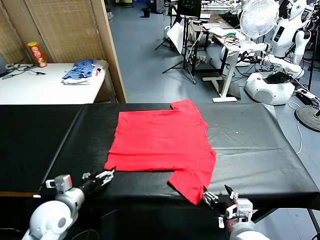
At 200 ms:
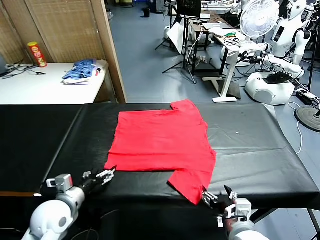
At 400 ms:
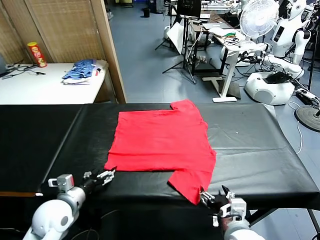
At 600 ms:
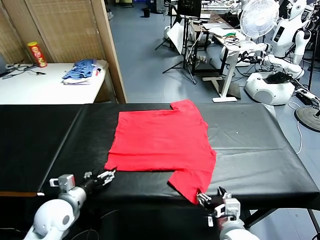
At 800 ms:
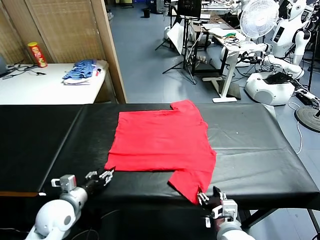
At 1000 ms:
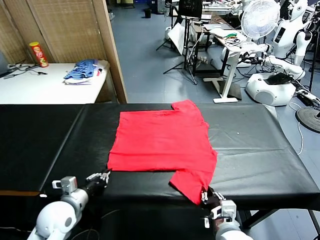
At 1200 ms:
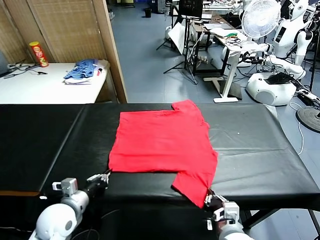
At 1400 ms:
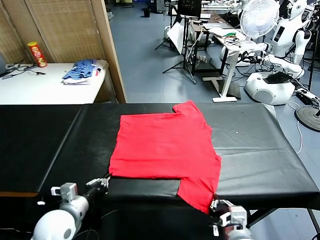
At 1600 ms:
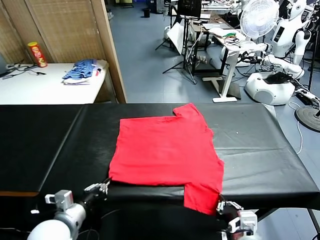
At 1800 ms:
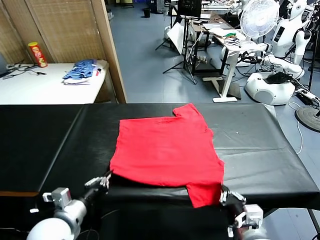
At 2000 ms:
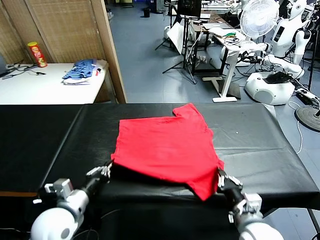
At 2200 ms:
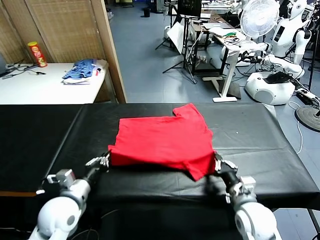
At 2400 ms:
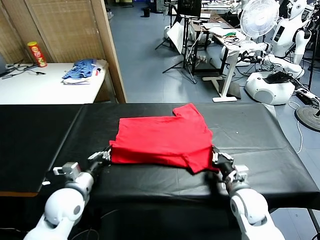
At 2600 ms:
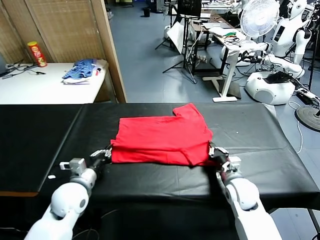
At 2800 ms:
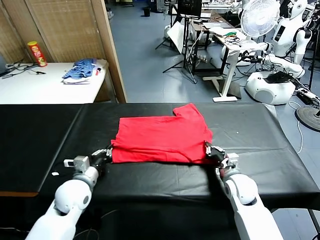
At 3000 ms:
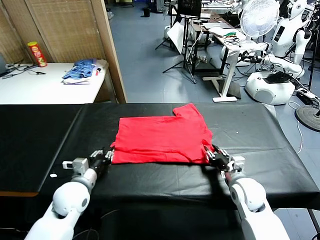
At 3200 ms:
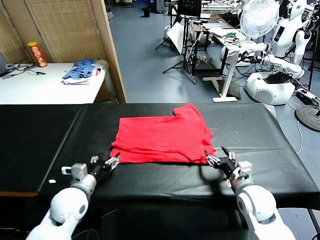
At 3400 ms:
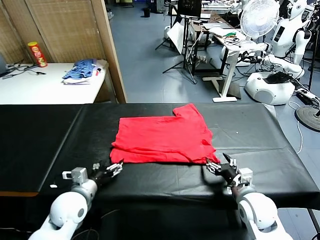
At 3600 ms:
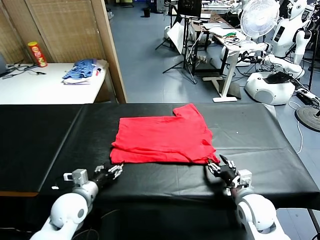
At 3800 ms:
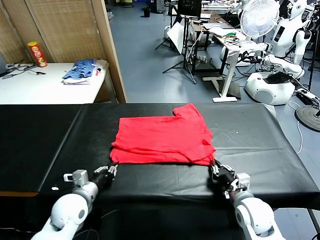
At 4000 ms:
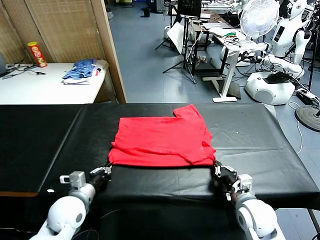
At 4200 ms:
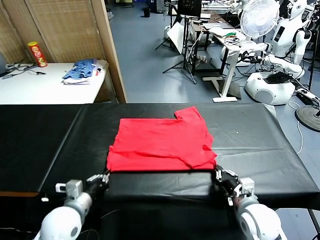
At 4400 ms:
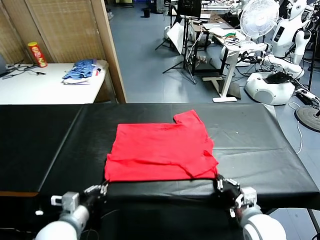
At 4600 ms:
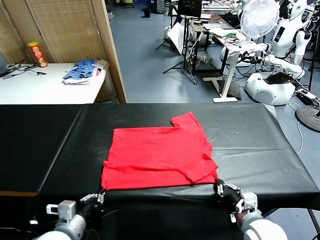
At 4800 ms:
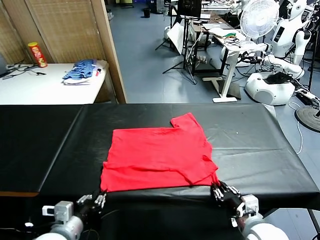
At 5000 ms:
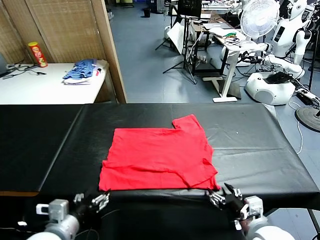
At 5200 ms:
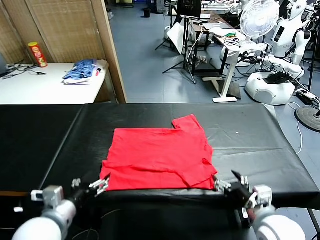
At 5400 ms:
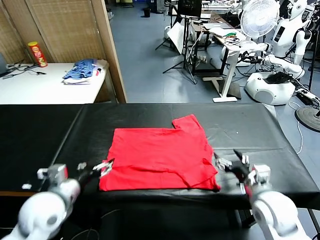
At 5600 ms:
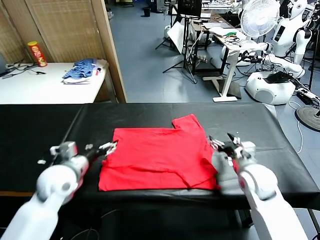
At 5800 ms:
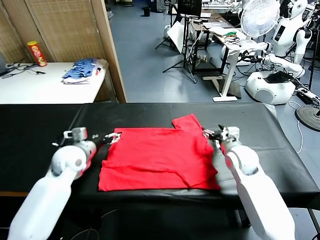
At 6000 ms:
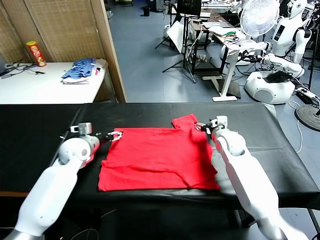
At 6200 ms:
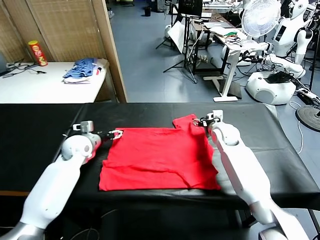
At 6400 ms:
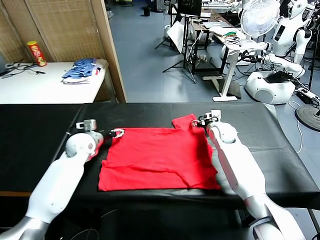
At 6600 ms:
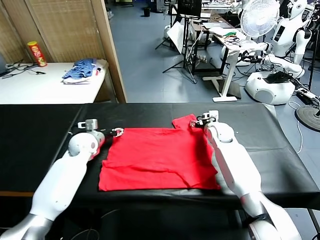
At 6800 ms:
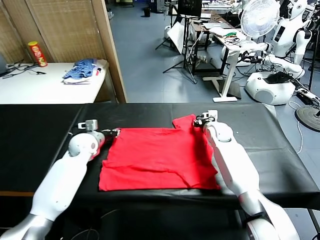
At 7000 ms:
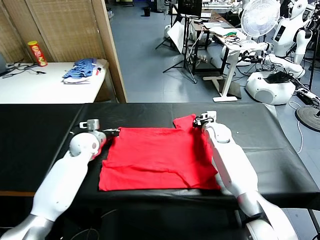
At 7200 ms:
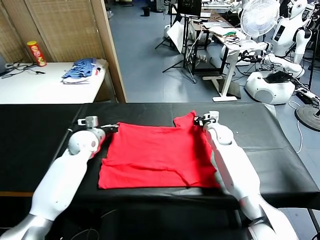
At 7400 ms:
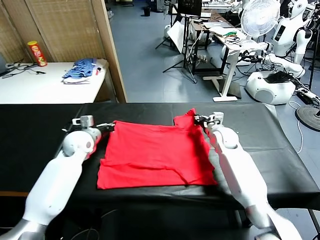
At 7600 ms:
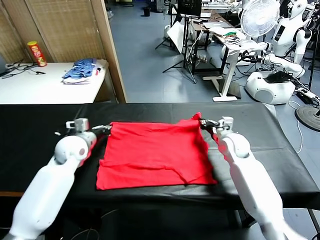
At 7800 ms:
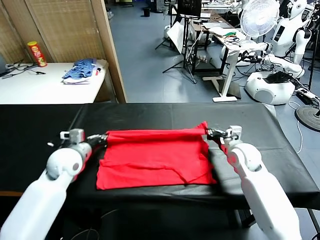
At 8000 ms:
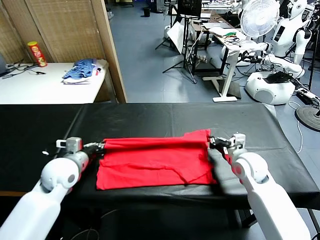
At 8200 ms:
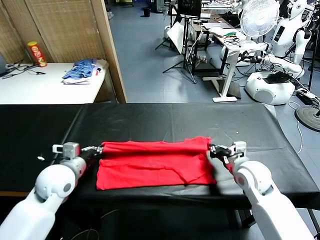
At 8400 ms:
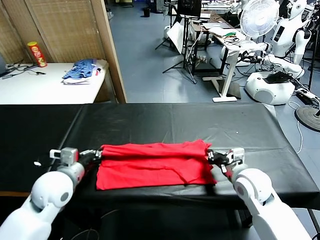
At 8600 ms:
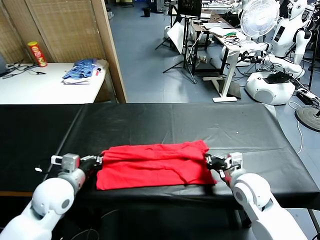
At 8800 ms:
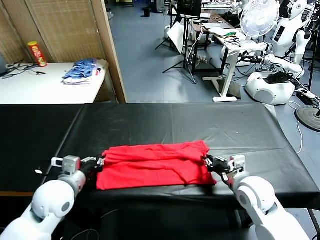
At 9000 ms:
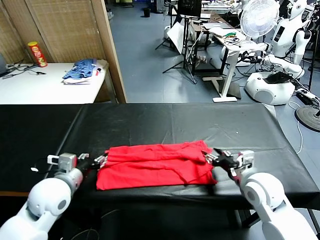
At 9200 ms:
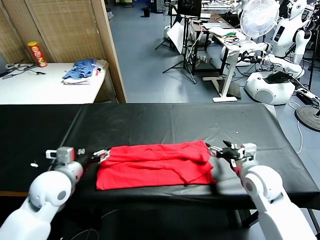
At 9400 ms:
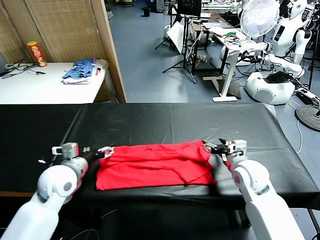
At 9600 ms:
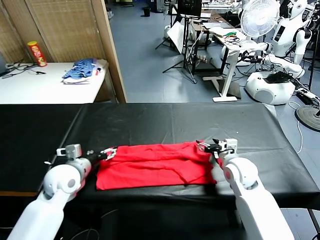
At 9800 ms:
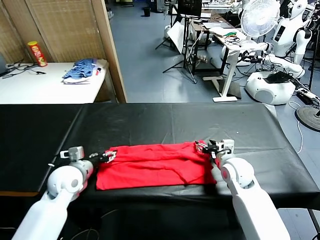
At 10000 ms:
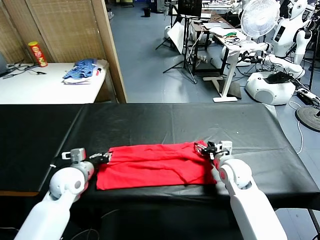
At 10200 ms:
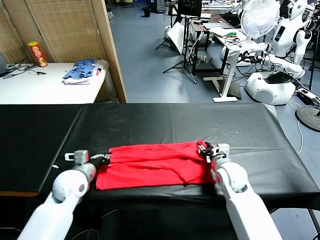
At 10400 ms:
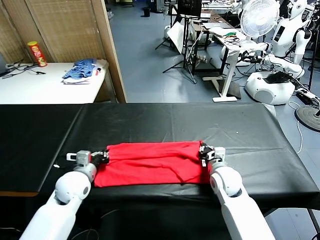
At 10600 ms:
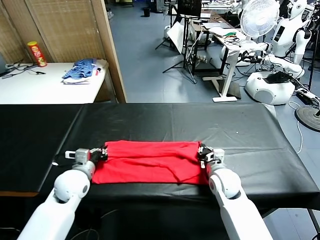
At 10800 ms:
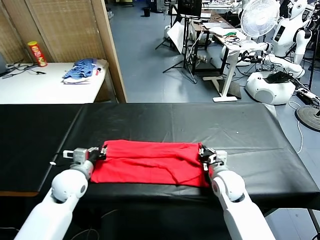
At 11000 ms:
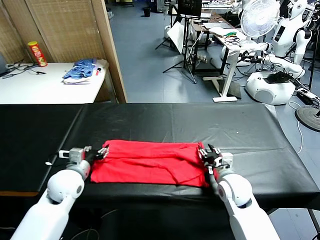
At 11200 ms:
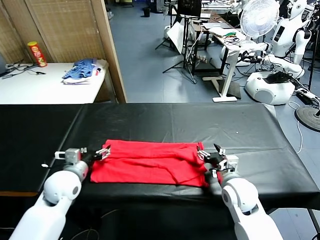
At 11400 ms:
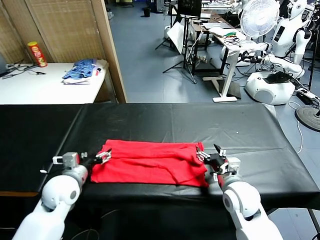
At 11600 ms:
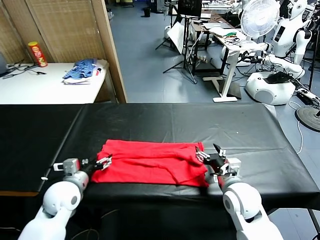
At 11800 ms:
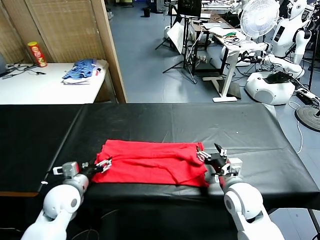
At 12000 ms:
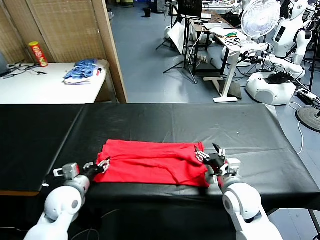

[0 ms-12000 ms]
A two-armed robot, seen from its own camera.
Task of the whole recording: fold and organize the clothes.
Step, 0 ms to 1600 ms: use both grippers simultaneously to clamp the lower edge of the clothing fabric.
Step, 1800 ms to 3000 ms: use both grippers to drag the lower edge of the fabric forward and fold it over the upper edge.
Step, 3400 ms to 5000 ms: Drag the clothes downward with both gripper.
Step, 5200 ms to 7200 ms: use both grippers simultaneously to clamp the upper edge of the clothing fabric.
Step, 7400 ms to 9000 ms: use both grippers to drag the upper edge of the fabric backward and fold it over the lower edge.
1600 ms to 3000 ms: Both grippers travel together forward, roughly 10 cm. The left gripper opens its fingers. The right gripper opens up.
3000 ms to 4400 ms: The grippers both shift backward by about 10 cm. The left gripper closes. Meanwhile the right gripper closes up.
4400 ms to 6000 ms: Both grippers move forward, roughly 30 cm. The right gripper opens; the left gripper opens up.
6000 ms to 7600 ms: The left gripper closes up. Meanwhile the right gripper shifts roughly 10 cm backward, and closes.
7600 ms to 9000 ms: Both grippers move backward, roughly 10 cm. The left gripper opens its fingers. The right gripper opens its fingers.
9000 ms to 10400 ms: The left gripper moves downward and forward, roughly 10 cm, and closes up, while the right gripper moves downward and to the left, approximately 10 cm, and closes its fingers.
10400 ms to 12000 ms: The left gripper ends up about 5 cm from where it was, and opens its fingers. The right gripper travels backward and upward by approximately 10 cm, and opens up.

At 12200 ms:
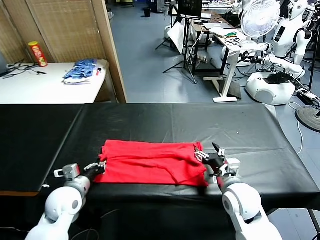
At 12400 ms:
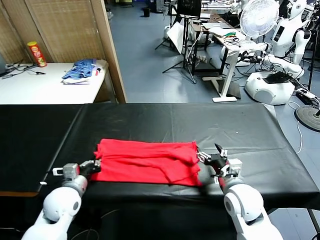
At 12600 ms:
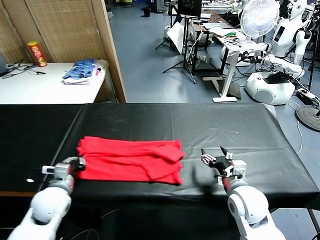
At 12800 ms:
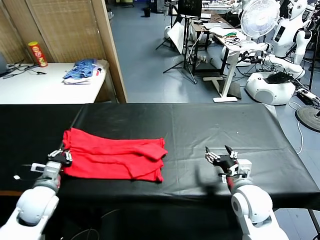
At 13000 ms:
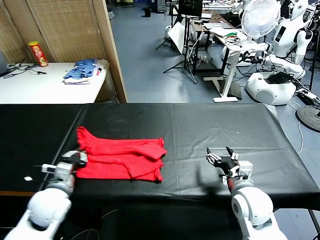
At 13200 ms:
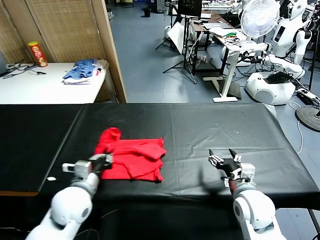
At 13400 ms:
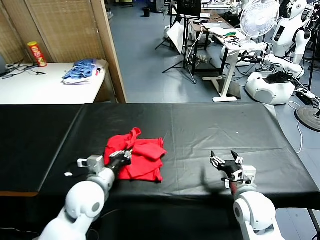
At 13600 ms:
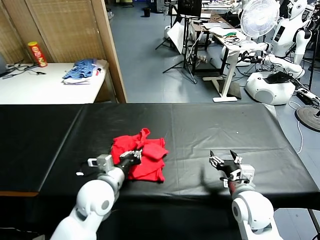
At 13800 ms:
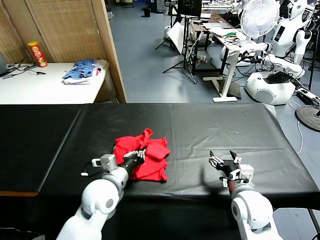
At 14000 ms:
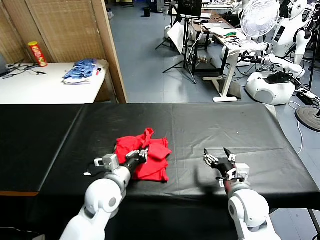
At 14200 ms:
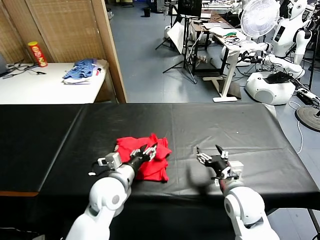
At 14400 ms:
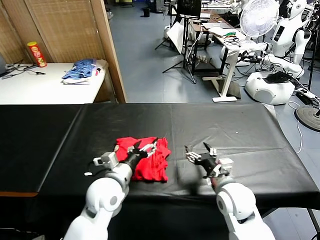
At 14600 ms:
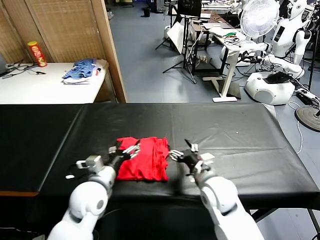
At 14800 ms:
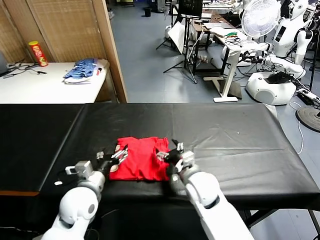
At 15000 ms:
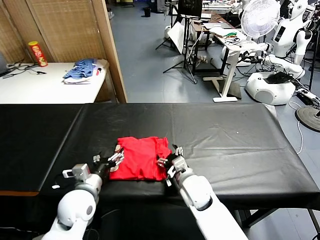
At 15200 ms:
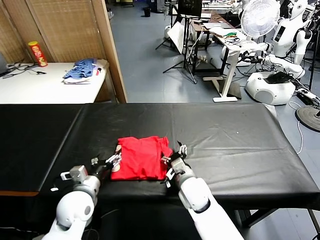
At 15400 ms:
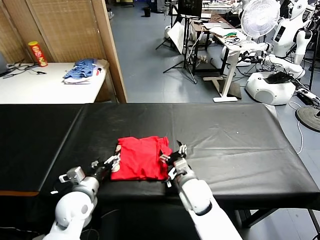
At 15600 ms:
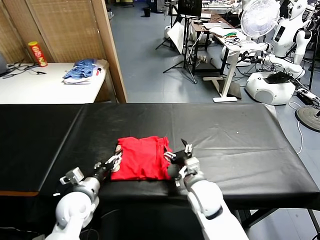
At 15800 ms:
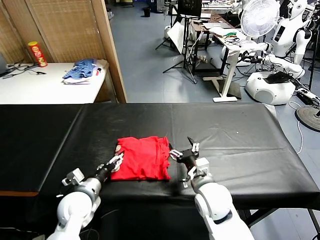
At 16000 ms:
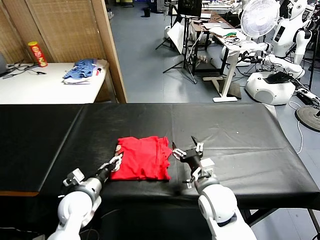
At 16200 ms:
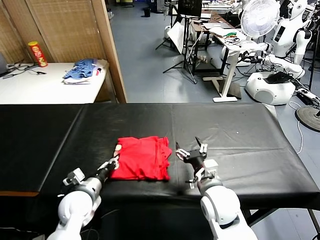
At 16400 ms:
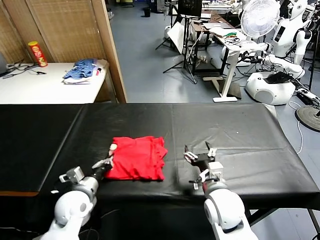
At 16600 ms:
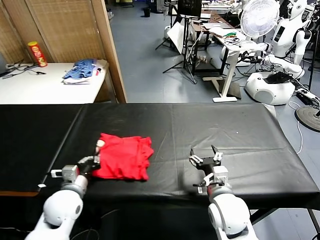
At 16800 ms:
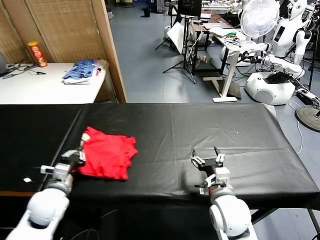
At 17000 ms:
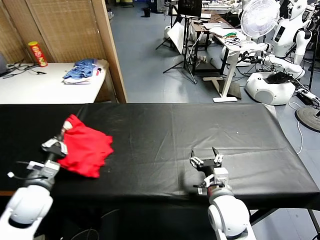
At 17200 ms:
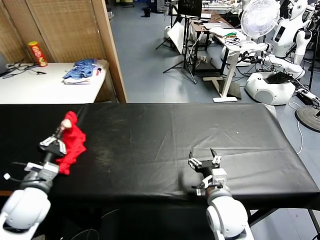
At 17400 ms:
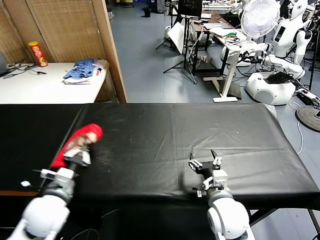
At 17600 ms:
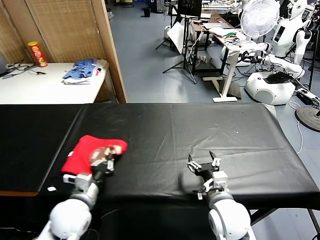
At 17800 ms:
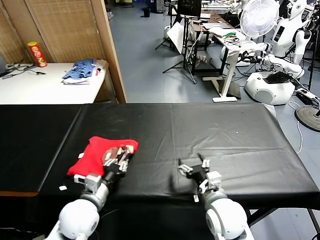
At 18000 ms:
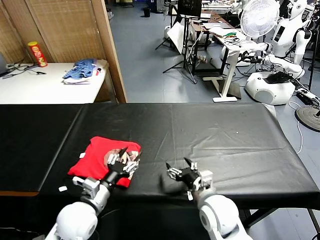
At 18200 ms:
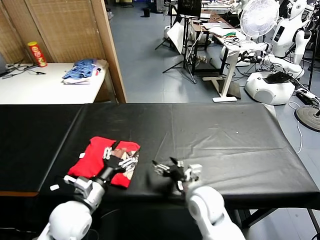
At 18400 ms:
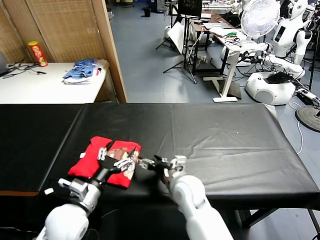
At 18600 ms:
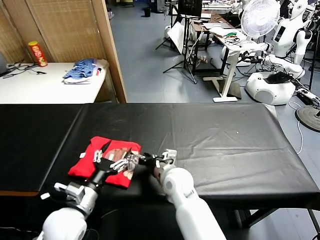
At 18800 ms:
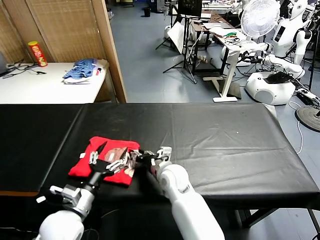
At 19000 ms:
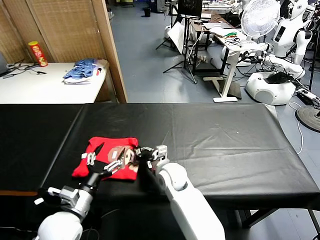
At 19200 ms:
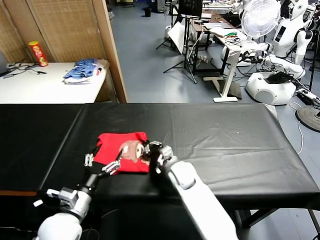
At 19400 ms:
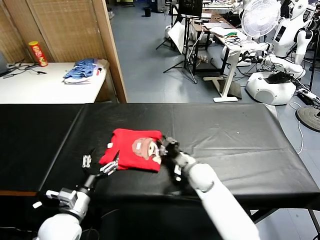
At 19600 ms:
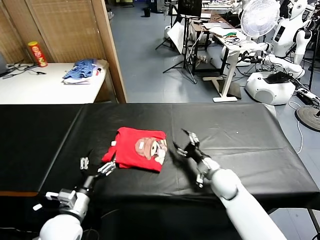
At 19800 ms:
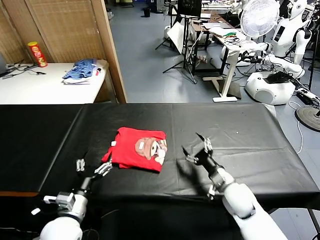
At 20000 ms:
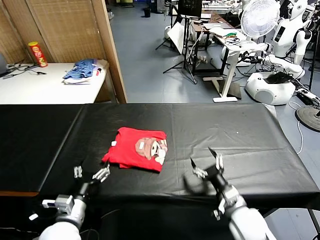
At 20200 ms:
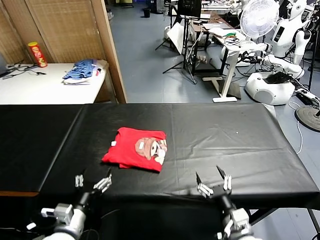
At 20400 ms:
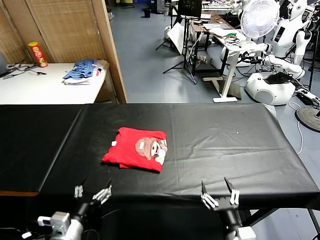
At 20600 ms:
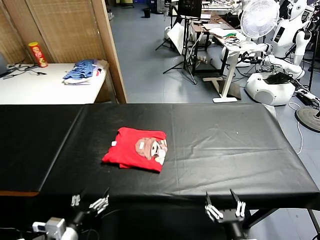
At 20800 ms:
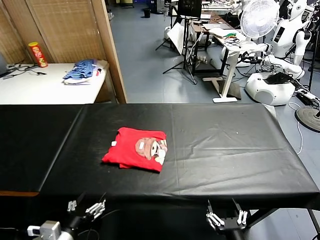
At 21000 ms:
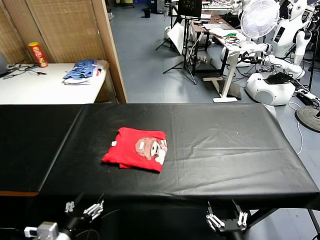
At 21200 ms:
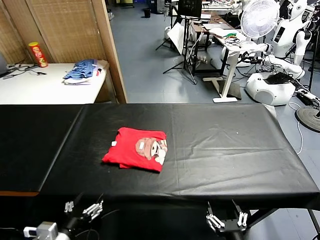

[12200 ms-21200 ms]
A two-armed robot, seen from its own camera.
Task of the whole recording: fold and organize the clothes.
Step, 12600 ms to 14400 ms: use the left gripper to drag the left edge of the fabric to the left and folds it over the right edge.
Step, 14600 ms to 18000 ms: Flip the folded clothes over with left gripper.
Step, 18200 ms to 19400 ms: Drag the clothes to the center of the table.
12200 ms to 13800 ms: The left gripper shifts some 15 cm to the right.
13800 ms to 15200 ms: The right gripper is displaced to the left and forward by approximately 15 cm. The left gripper shifts roughly 10 cm to the left, and opens.
15200 ms to 16600 ms: The left gripper closes its fingers. Meanwhile the right gripper moves backward, to the right and upward, about 10 cm.
16600 ms to 18200 ms: The right gripper is displaced to the left by about 5 cm, while the left gripper heads to the right, covering some 5 cm, and opens.
18200 ms to 19800 ms: The right gripper moves to the right and downward, some 15 cm, and closes, then reopens, while the left gripper changes place by roughly 5 cm.
19800 ms to 21200 ms: The left gripper heads backward, covering approximately 10 cm. Meanwhile the right gripper travels backward by roughly 25 cm.
